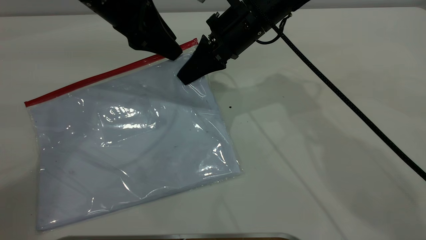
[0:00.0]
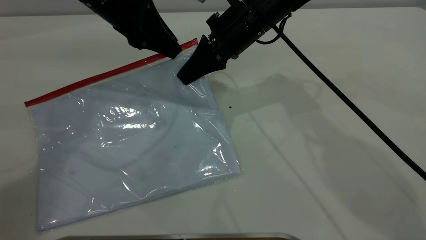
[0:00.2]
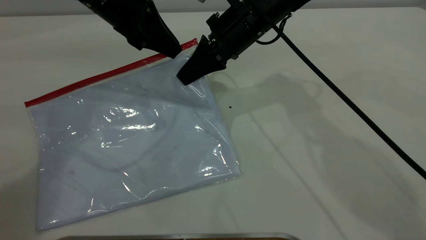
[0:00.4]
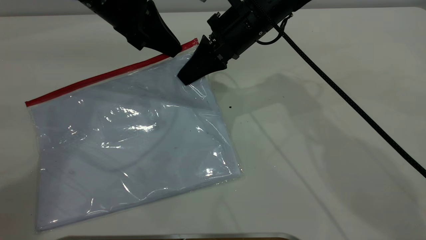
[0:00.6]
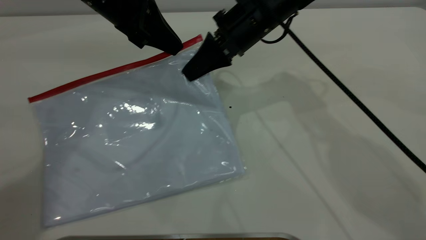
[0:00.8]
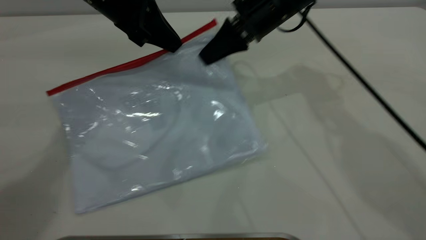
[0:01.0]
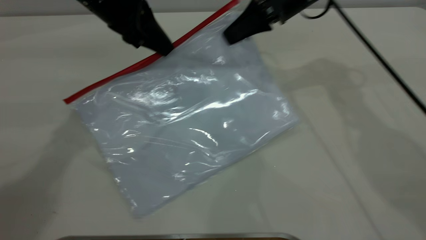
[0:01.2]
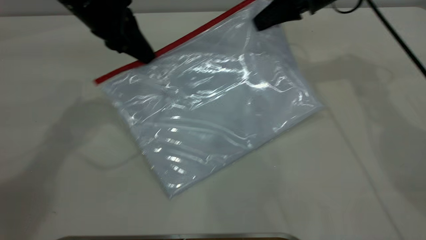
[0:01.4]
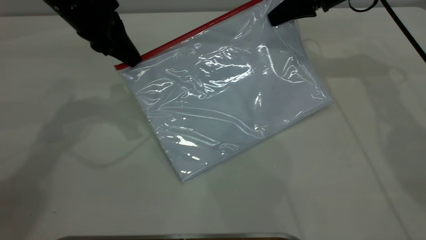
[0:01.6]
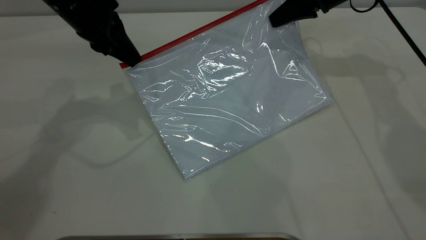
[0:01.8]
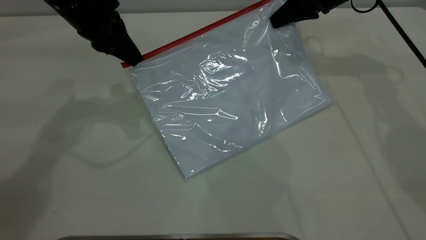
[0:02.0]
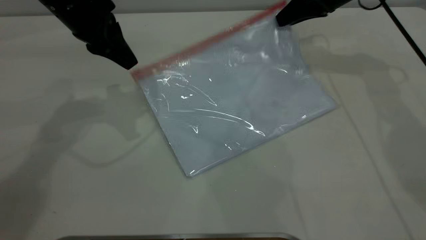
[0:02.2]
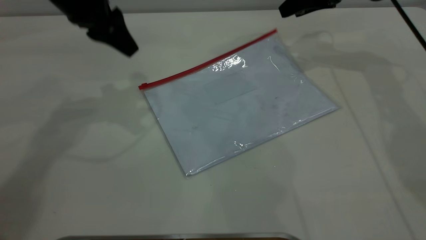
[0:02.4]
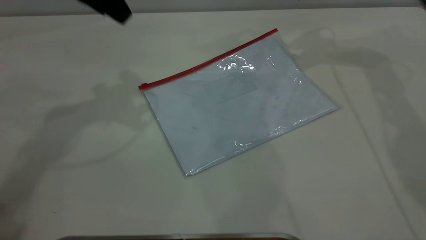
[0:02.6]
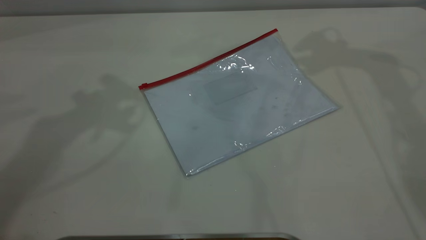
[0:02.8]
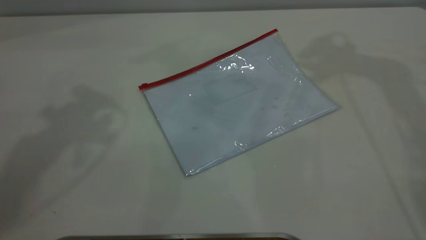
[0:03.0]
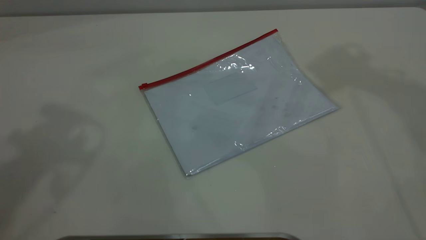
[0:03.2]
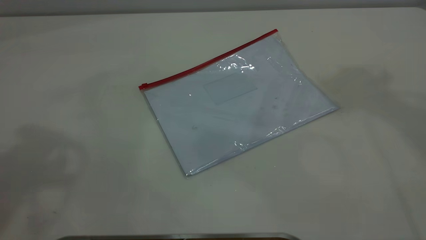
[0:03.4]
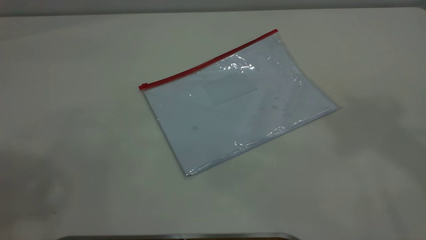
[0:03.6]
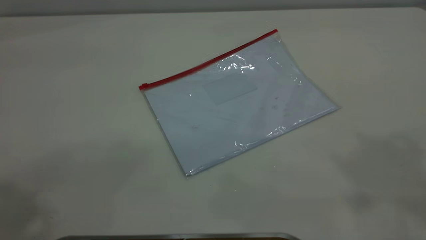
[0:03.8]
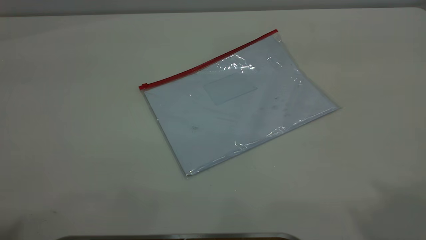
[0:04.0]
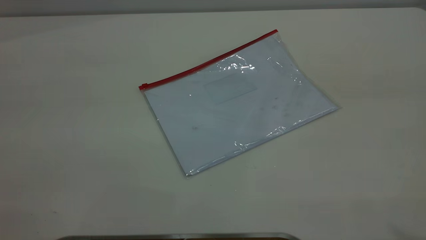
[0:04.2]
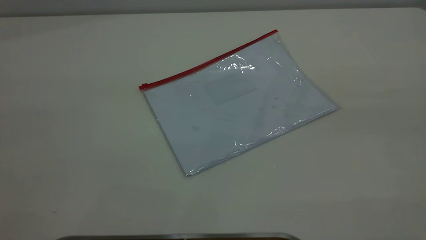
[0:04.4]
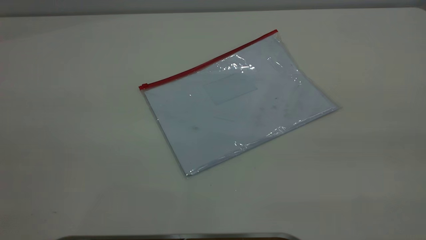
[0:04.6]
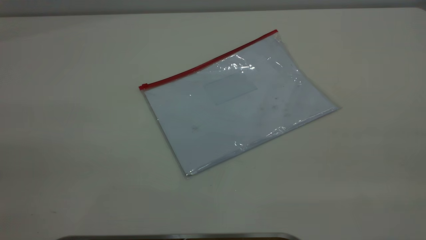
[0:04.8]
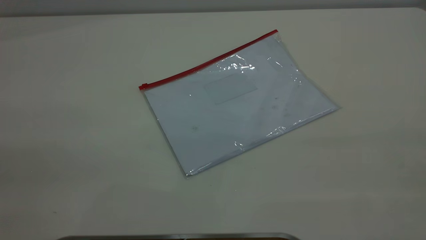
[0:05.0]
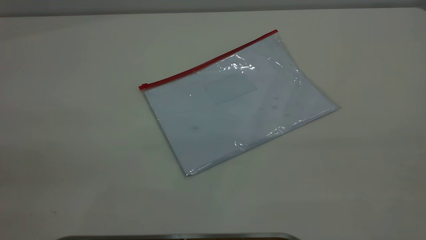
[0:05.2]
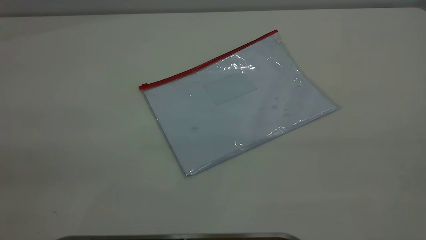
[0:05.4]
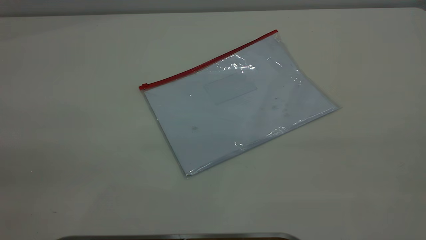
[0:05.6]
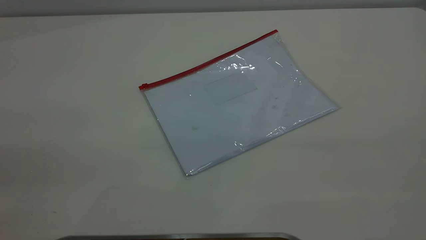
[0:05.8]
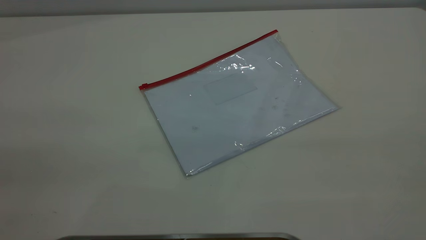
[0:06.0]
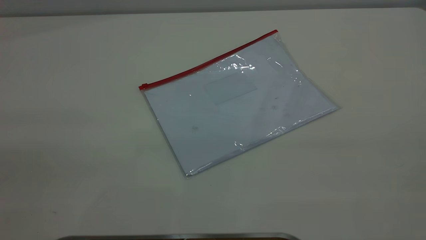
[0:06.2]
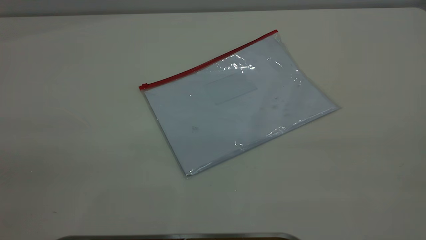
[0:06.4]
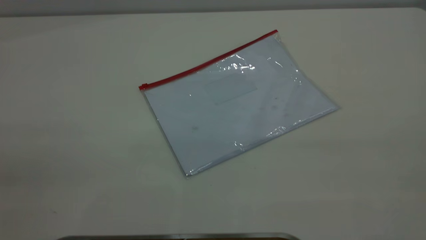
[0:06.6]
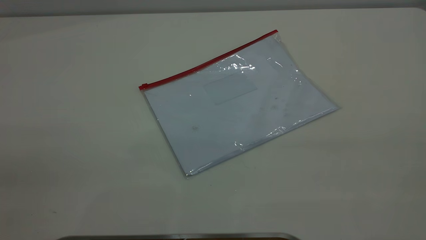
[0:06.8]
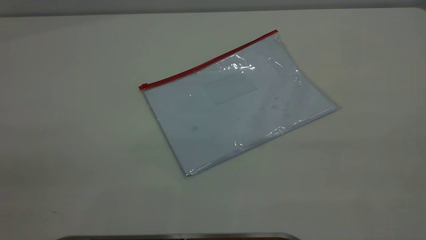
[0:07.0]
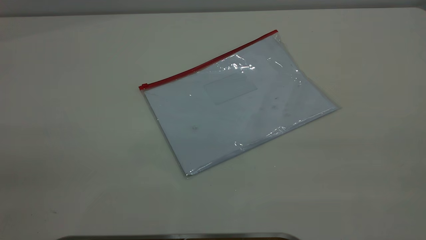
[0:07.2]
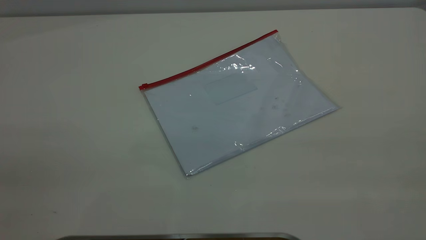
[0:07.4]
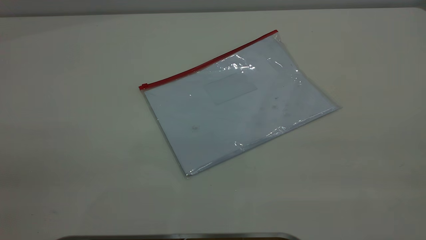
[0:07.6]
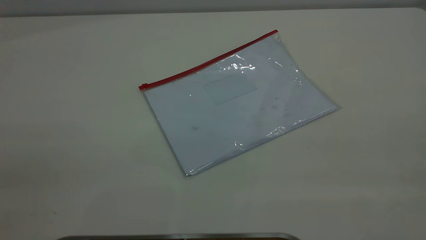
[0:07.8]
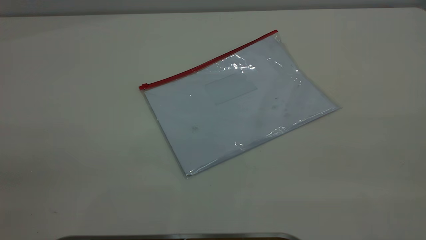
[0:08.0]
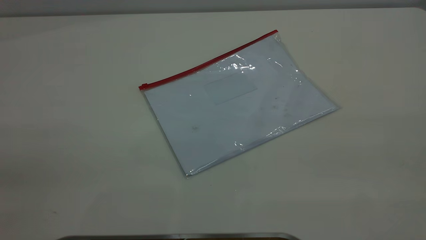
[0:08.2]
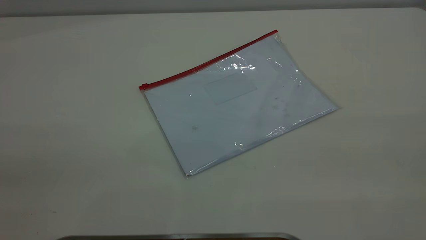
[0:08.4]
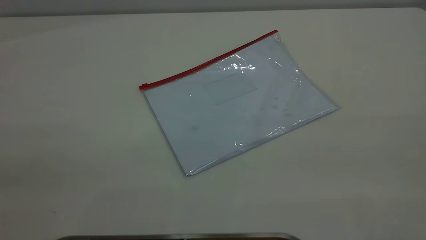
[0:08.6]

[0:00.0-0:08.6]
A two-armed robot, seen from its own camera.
Step, 0:00.0 to 0:02.0: Pulling up the zipper on the transparent plastic bag with the left gripper to close it.
Step, 0:02.2 to 0:03.2: Place the transparent plastic bag.
0:00.0 to 0:01.4: The right gripper moves to the right and forward, some 15 cm. Meanwhile the left gripper closes.
0:01.4 to 0:02.8: The two grippers go roughly 15 cm upward. The left gripper opens up. Meanwhile the right gripper opens.
